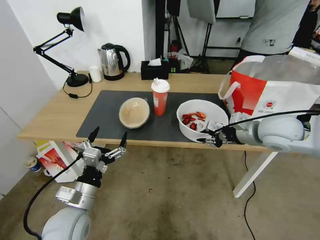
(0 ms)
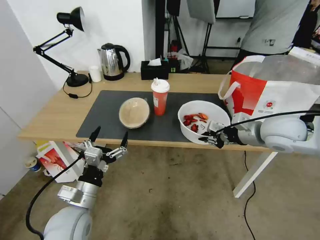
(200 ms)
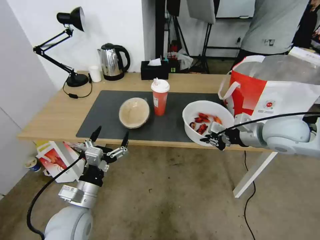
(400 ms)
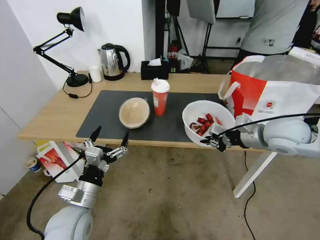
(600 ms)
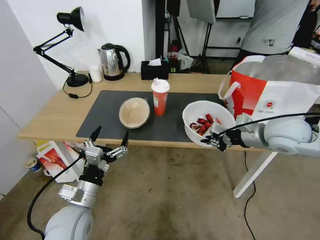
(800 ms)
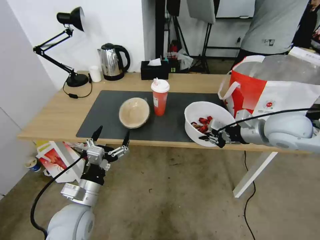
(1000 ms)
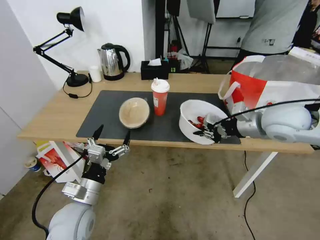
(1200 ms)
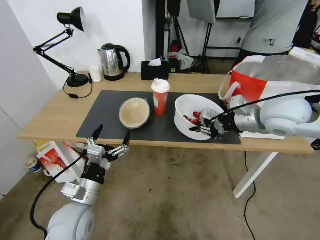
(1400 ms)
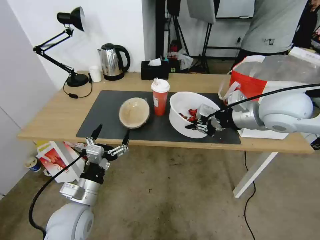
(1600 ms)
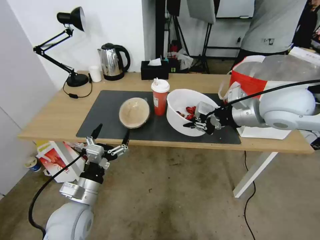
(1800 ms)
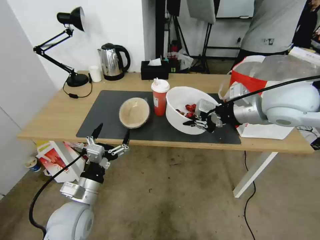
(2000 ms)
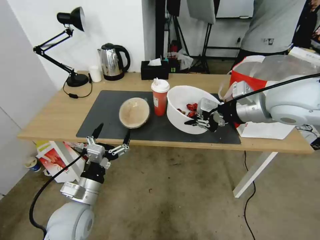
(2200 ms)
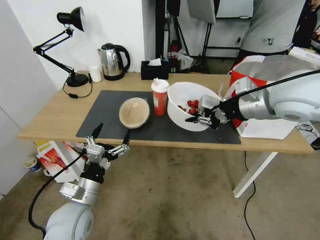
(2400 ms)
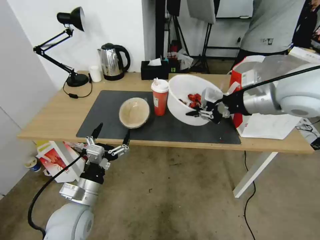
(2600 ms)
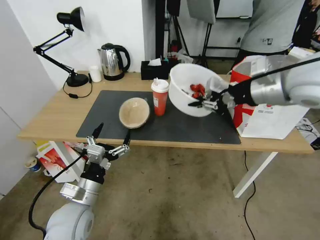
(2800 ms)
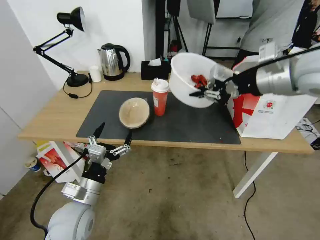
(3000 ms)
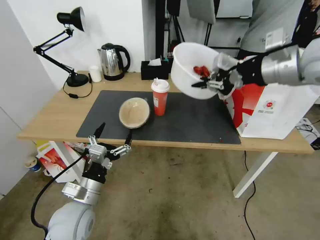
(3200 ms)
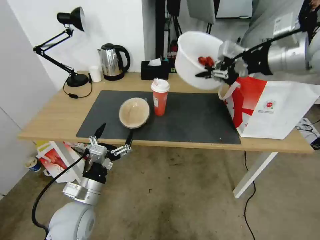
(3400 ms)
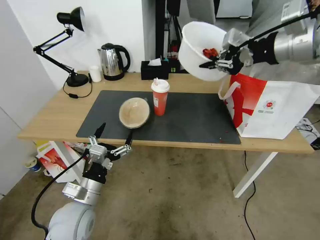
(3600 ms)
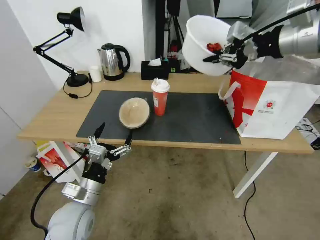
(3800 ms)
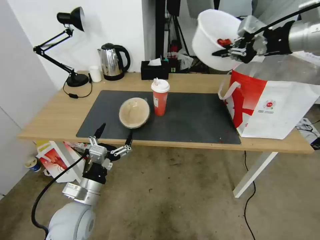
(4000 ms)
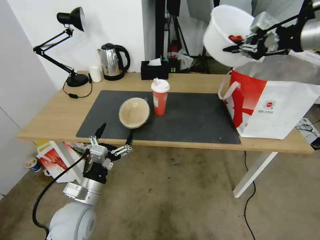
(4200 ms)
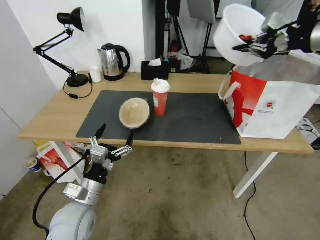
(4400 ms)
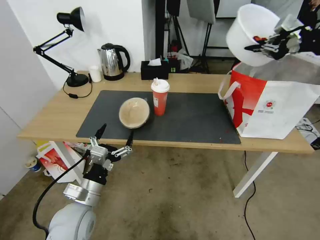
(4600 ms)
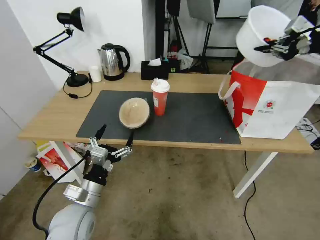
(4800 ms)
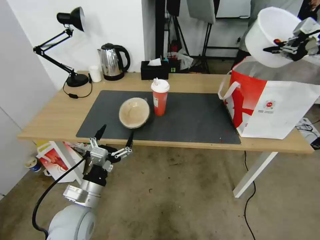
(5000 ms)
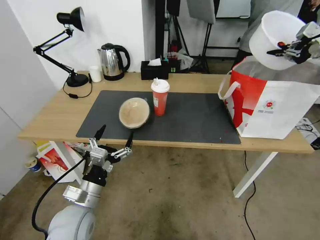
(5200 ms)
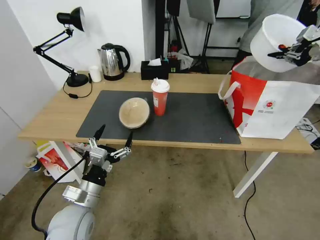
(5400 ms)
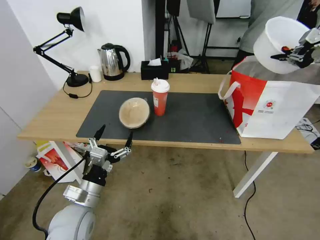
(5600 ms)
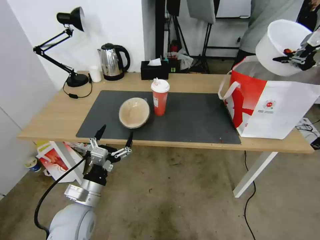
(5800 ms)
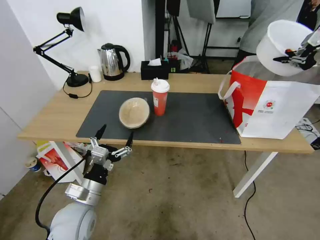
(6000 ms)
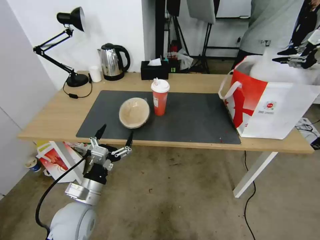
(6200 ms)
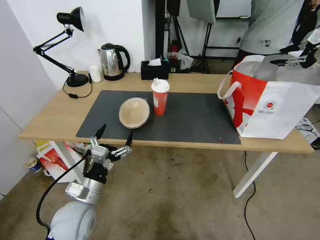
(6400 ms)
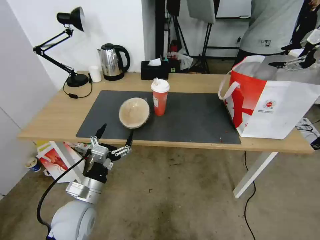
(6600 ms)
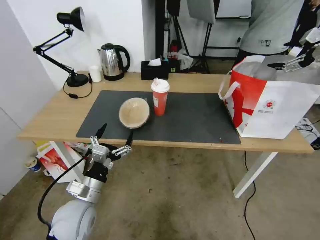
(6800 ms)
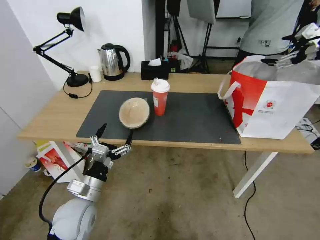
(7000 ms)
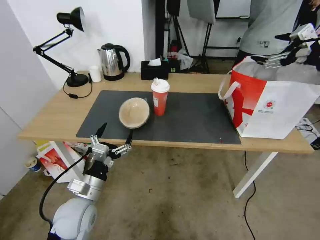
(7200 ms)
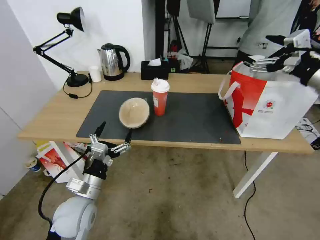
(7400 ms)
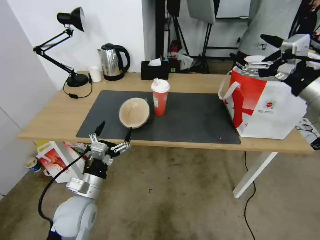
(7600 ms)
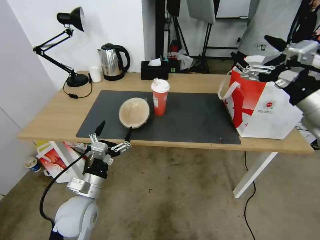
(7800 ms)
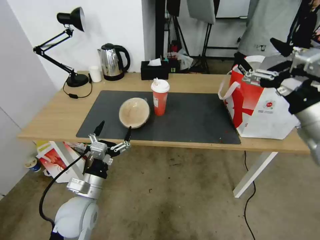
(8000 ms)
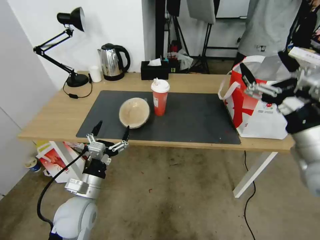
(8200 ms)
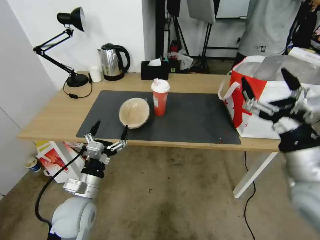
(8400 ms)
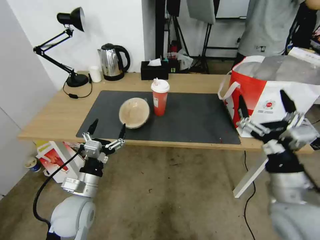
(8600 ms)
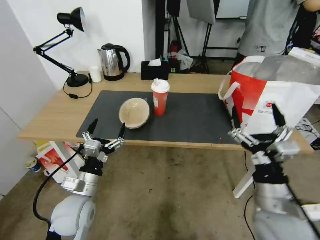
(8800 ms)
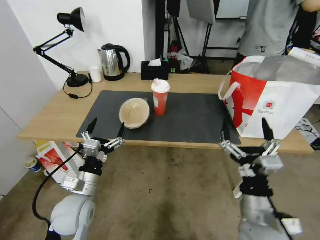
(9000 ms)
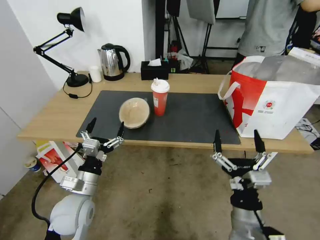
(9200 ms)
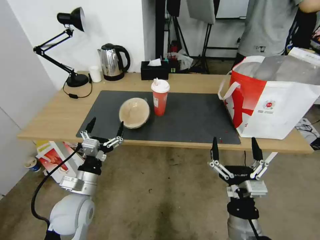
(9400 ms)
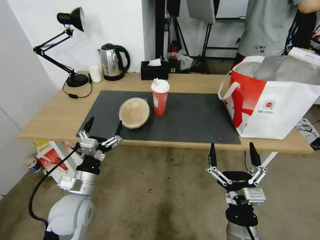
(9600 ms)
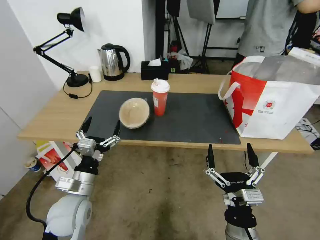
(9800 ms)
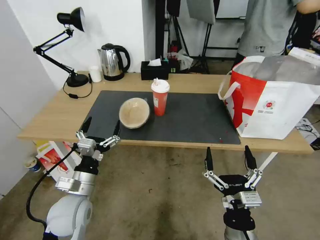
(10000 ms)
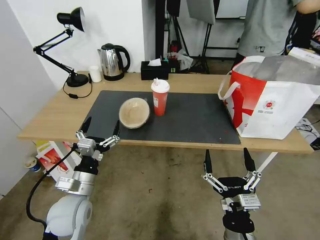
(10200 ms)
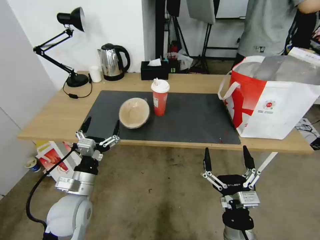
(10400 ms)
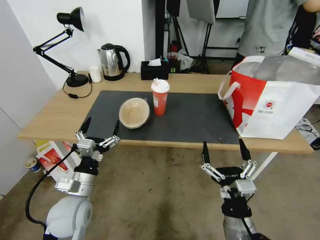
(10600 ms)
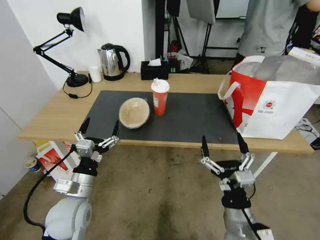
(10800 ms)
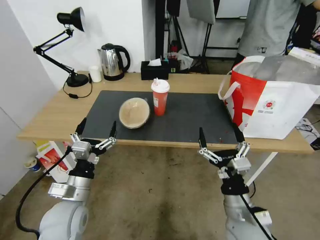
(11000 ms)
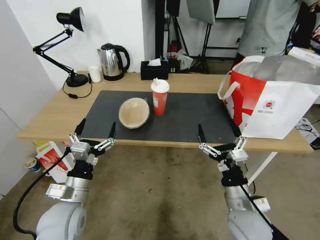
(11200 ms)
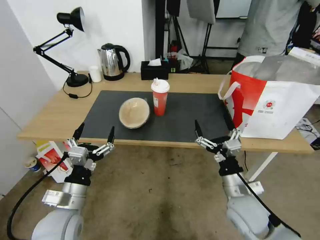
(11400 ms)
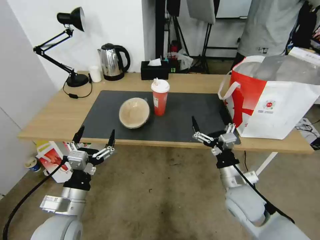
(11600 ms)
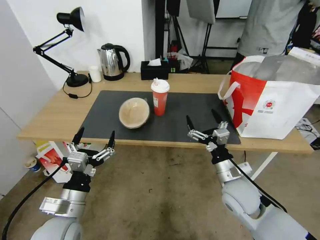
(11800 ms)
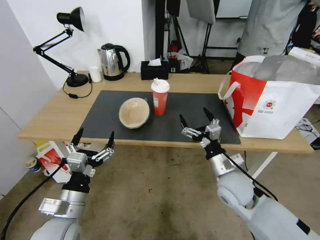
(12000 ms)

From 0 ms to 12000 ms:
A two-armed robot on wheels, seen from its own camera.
Task of the whole recording: Pick up the trash from the table and place it into the takeout bag.
From 0 ms to 1600 ms: The right gripper goes about 10 cm upward.
From 1600 ms to 3000 ms: The right gripper goes some 10 cm upward.
From 3000 ms to 4400 ms: The right gripper moves to the right and upward, approximately 15 cm.
From 4400 ms to 6000 ms: The right gripper goes roughly 10 cm to the right.
From 6000 ms to 7600 ms: The right gripper heads to the left, backward and downward, covering roughly 20 cm, and opens up.
From 7600 ms to 9000 ms: The right gripper is displaced downward, backward and to the left by approximately 30 cm.
From 9000 ms to 10400 ms: The right gripper shifts some 10 cm downward and backward.
From 10400 ms to 12000 ms: The right gripper heads forward, covering some 15 cm. The left gripper is displaced backward by roughly 5 cm.

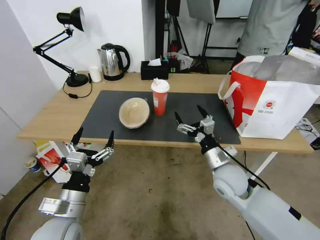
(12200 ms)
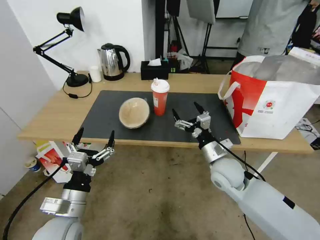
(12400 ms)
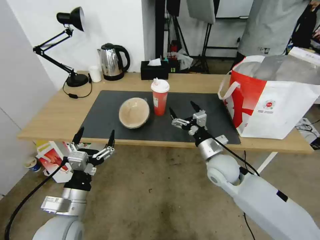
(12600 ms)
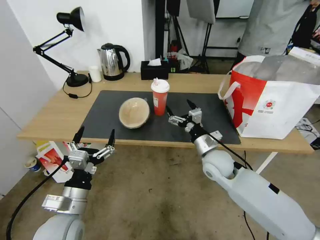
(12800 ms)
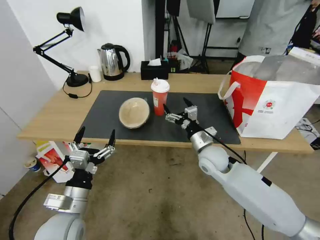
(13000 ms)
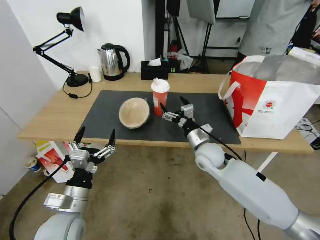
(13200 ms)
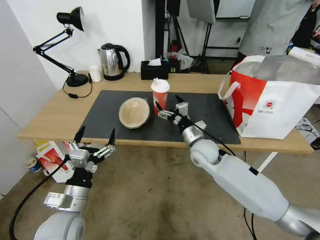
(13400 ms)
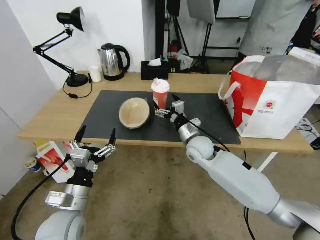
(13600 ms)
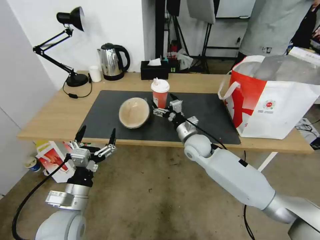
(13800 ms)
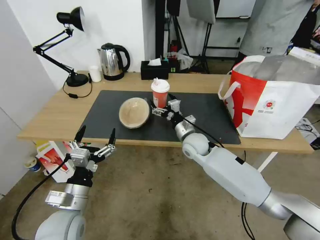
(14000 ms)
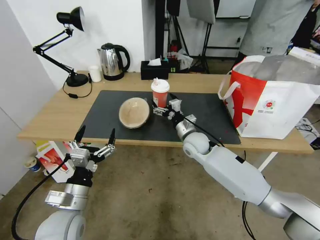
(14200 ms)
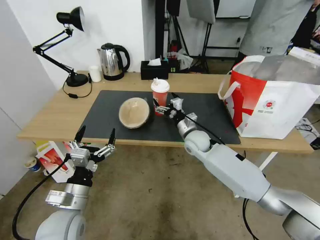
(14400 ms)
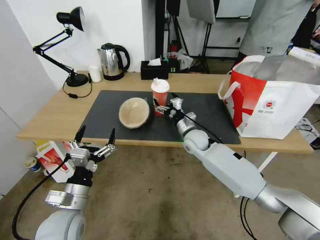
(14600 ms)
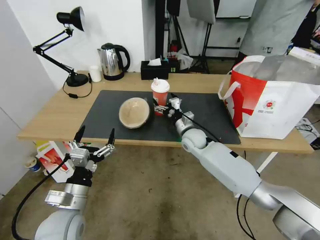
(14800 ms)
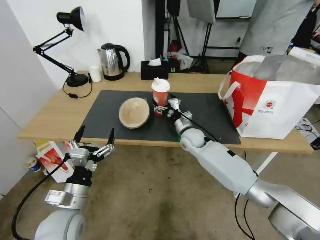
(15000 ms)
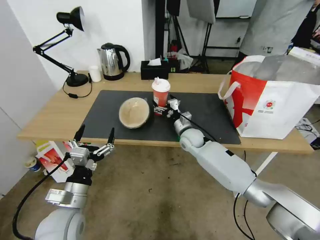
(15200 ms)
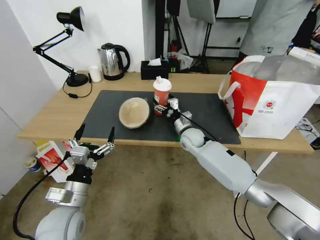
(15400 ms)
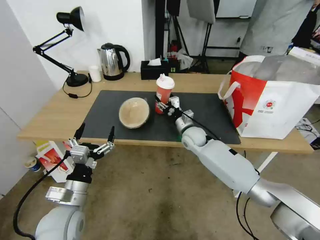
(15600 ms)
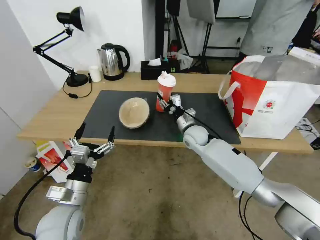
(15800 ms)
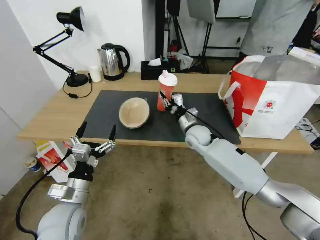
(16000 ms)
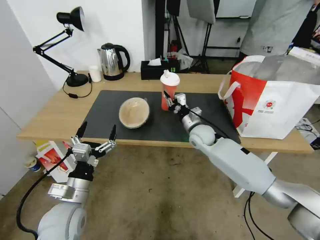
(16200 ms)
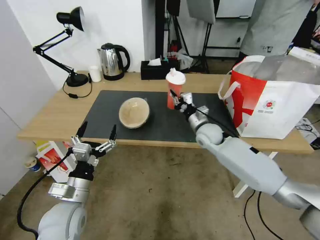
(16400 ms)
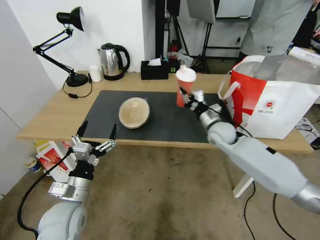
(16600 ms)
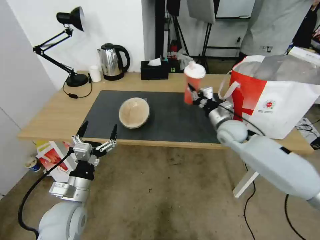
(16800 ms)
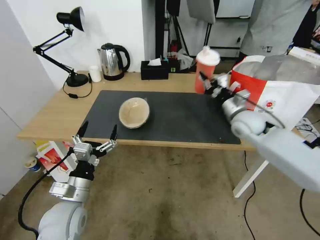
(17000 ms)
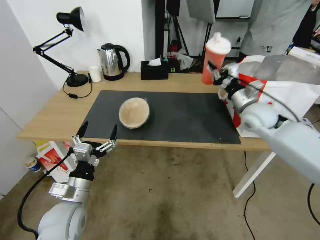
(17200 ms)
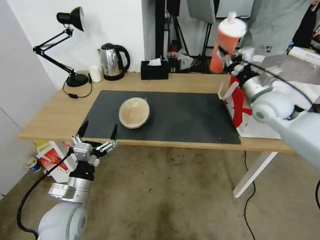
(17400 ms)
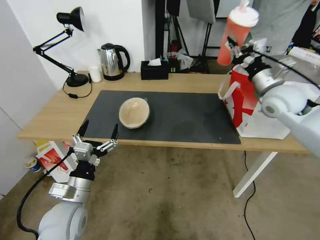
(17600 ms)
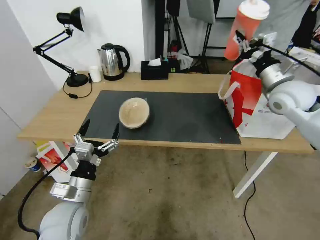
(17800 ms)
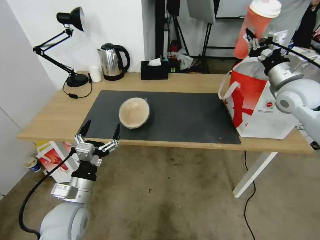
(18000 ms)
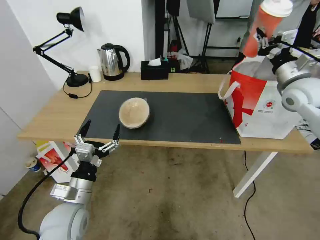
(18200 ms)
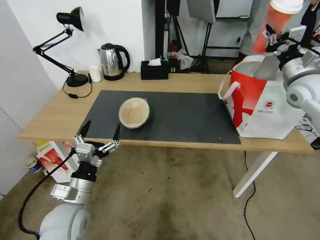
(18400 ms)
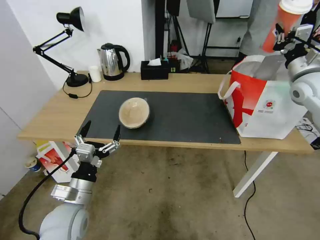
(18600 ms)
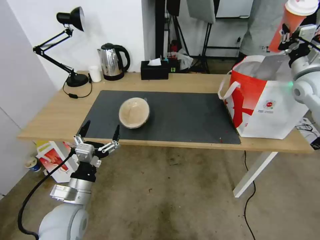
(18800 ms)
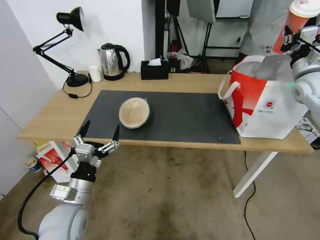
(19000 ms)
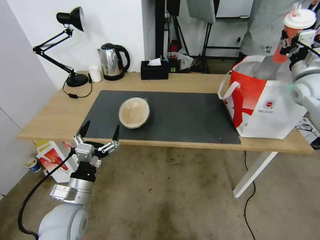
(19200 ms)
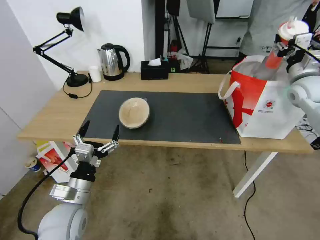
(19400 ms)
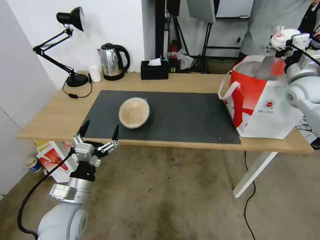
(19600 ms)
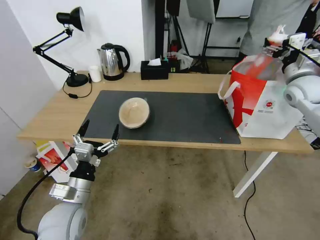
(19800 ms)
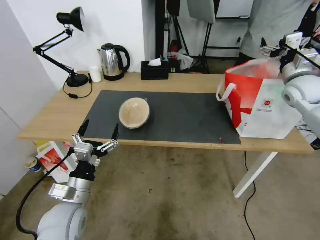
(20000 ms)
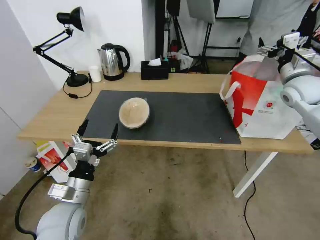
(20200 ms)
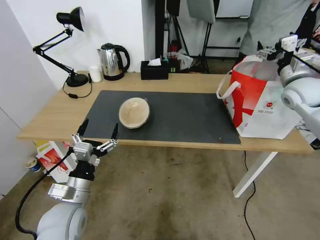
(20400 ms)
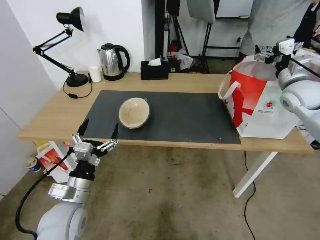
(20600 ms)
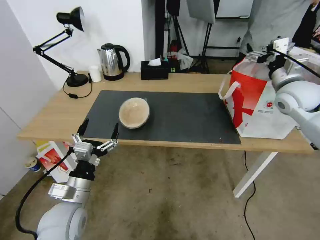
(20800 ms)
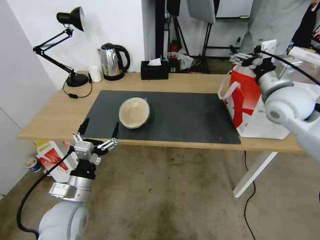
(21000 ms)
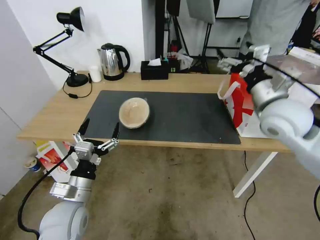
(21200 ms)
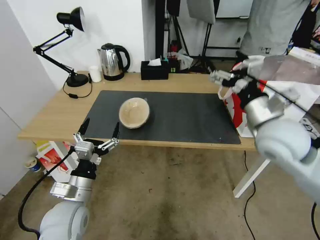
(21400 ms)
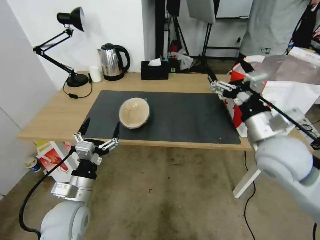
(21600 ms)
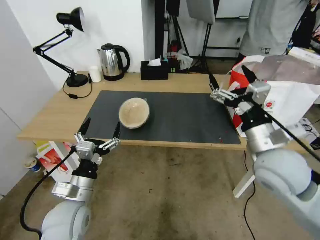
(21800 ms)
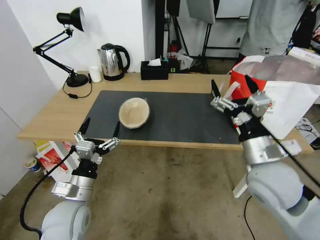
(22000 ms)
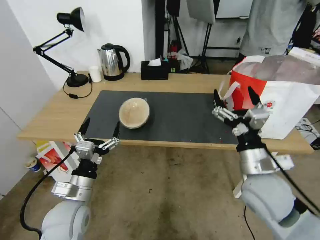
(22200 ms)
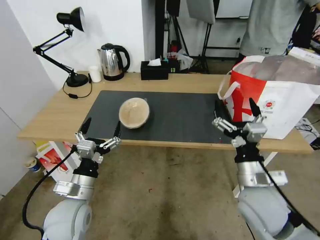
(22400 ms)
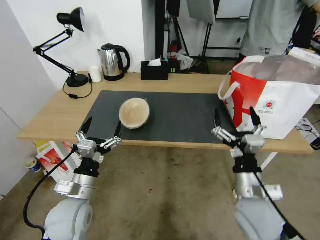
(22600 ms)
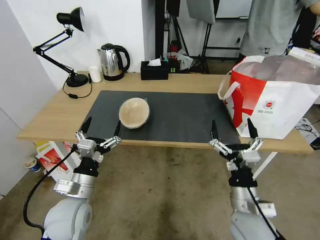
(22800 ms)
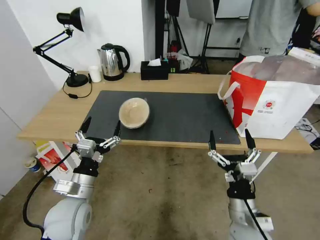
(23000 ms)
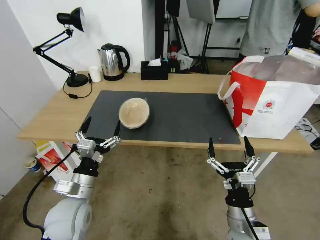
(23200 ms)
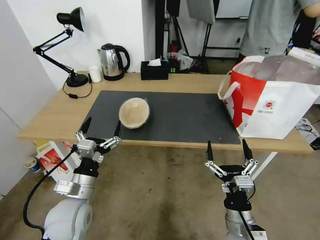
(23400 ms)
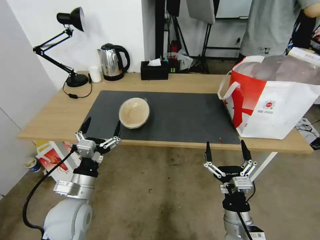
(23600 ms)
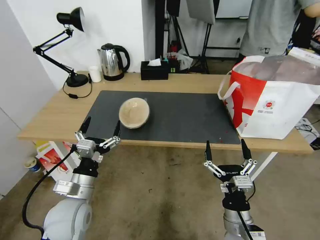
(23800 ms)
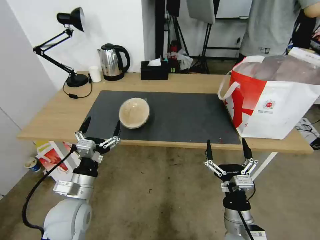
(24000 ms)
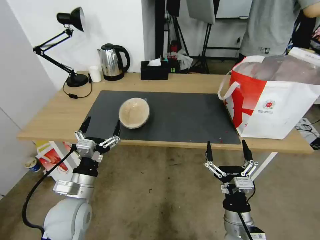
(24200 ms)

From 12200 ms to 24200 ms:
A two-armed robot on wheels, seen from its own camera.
Task of the whole recording: Pick up the trash from the table and place it into the takeout bag.
From 12200 ms to 13800 ms: The right gripper shifts roughly 15 cm forward and to the left.
From 13800 ms to 15200 ms: The right gripper is displaced forward by roughly 5 cm.
From 15200 ms to 16600 ms: The right gripper heads to the right and upward, covering roughly 10 cm, and closes its fingers.
From 16600 ms to 18200 ms: The right gripper moves upward and to the right, roughly 25 cm.
From 18200 ms to 19800 ms: The right gripper changes place by some 5 cm, and opens.
From 19800 ms to 21200 ms: The right gripper moves to the left and backward, about 20 cm.
From 21200 ms to 22600 ms: The right gripper goes approximately 25 cm downward and backward.
From 22600 ms to 24200 ms: The right gripper shifts about 10 cm downward and backward.
